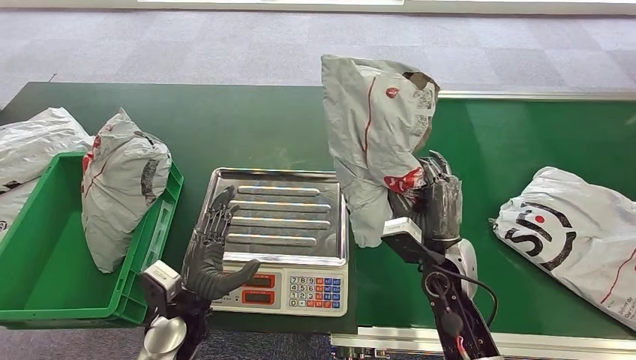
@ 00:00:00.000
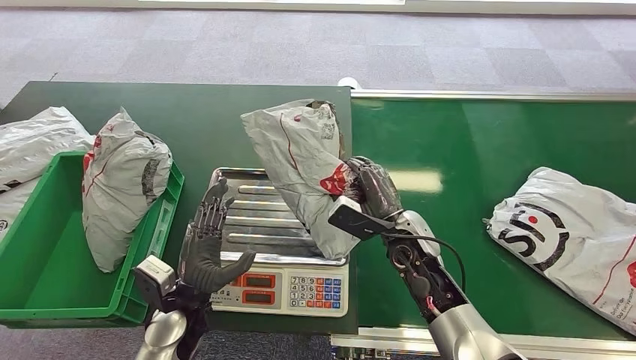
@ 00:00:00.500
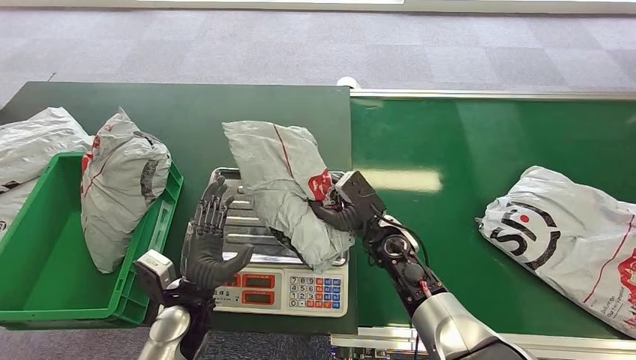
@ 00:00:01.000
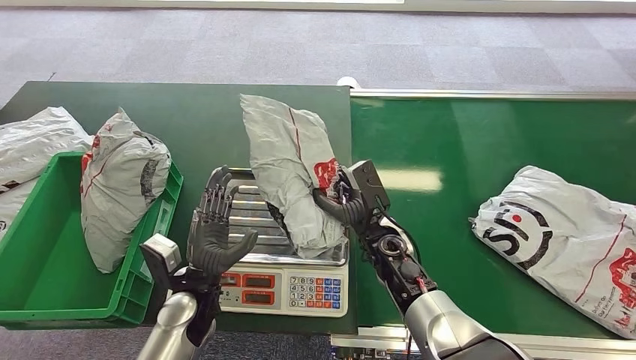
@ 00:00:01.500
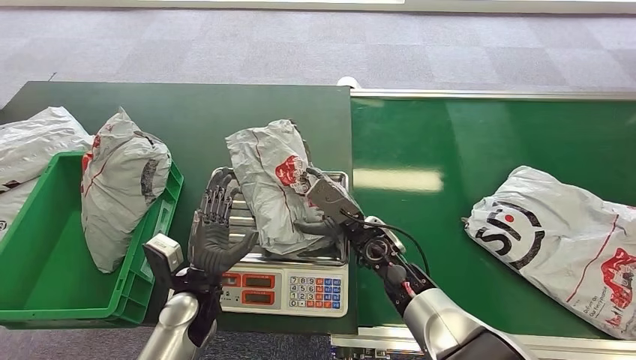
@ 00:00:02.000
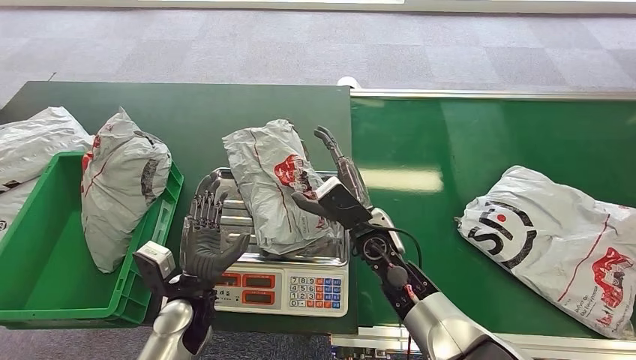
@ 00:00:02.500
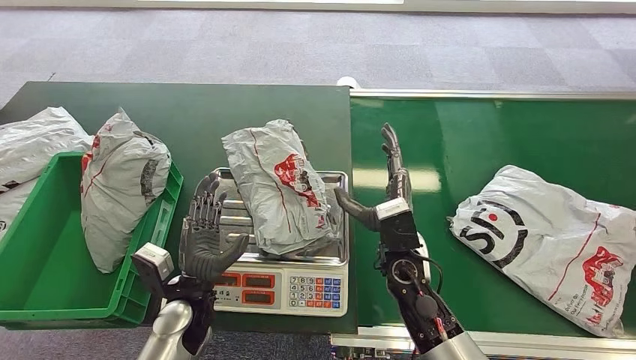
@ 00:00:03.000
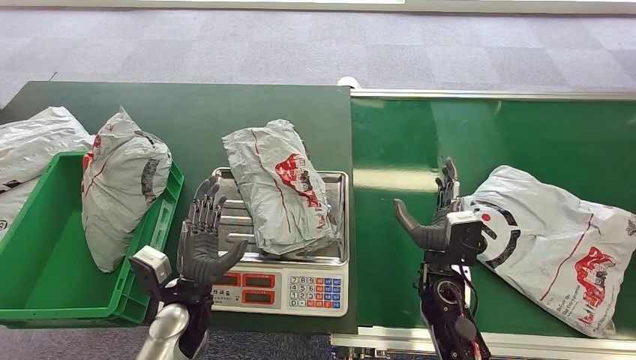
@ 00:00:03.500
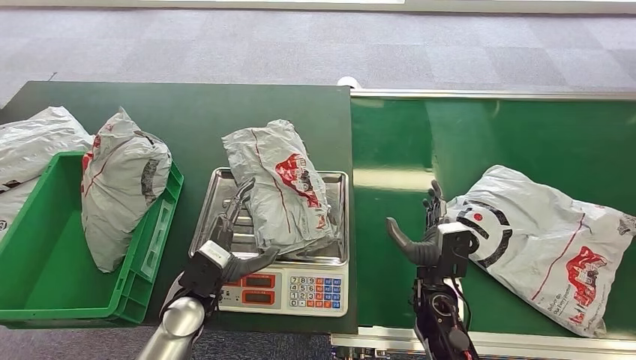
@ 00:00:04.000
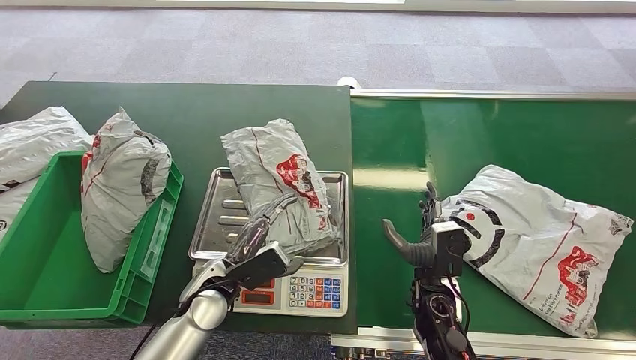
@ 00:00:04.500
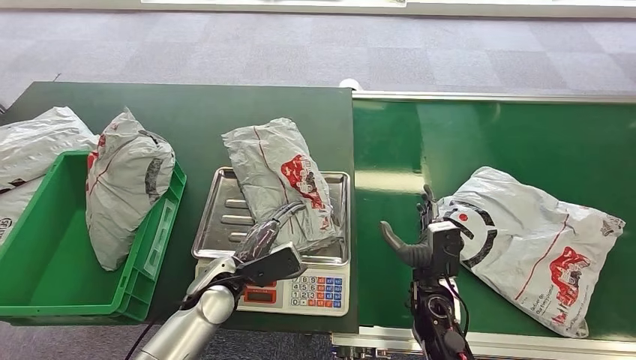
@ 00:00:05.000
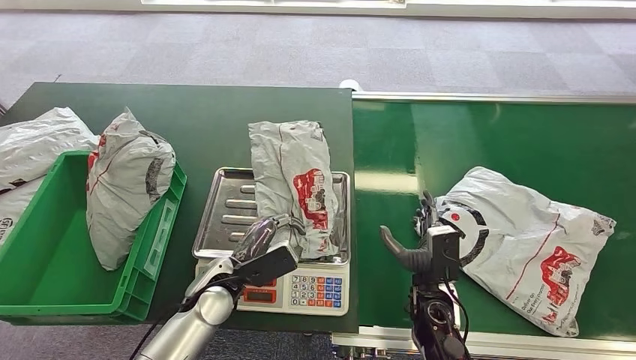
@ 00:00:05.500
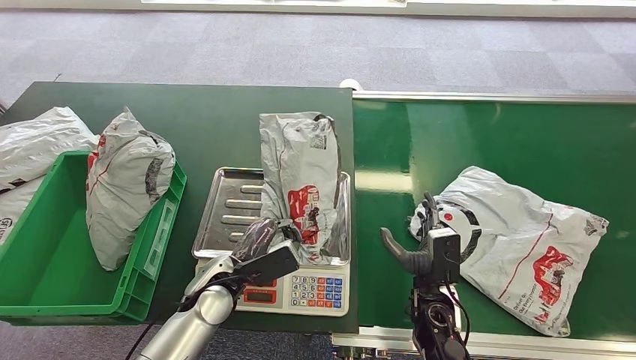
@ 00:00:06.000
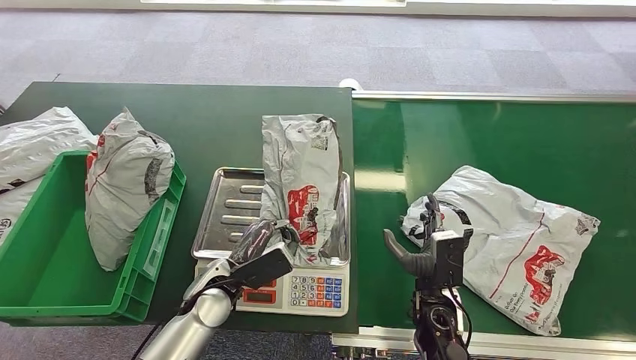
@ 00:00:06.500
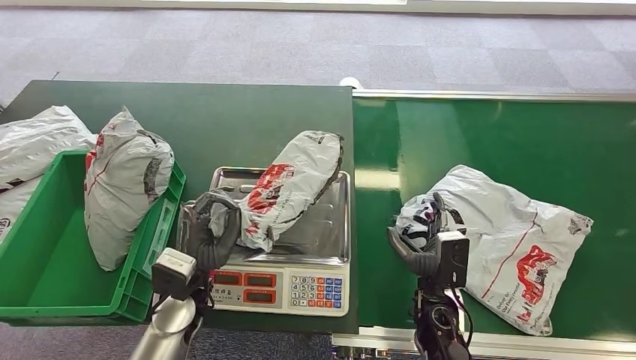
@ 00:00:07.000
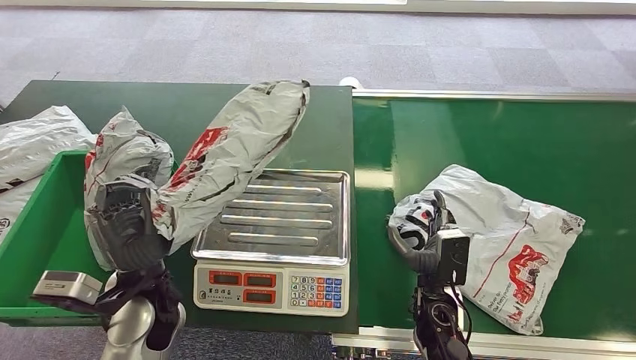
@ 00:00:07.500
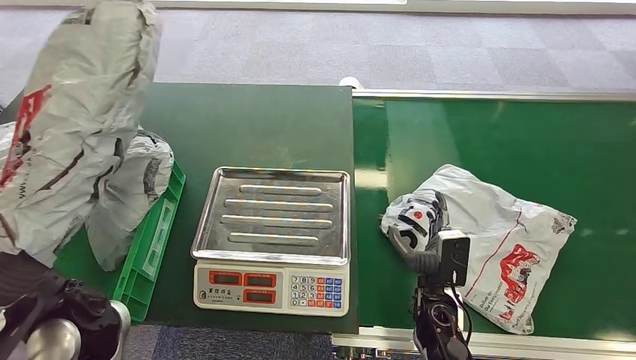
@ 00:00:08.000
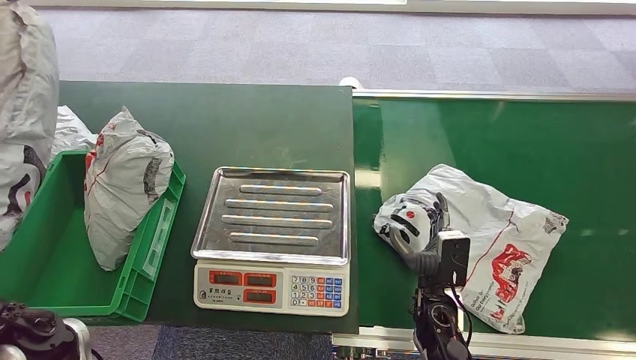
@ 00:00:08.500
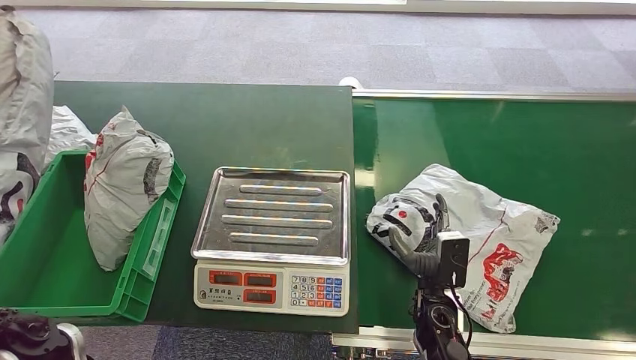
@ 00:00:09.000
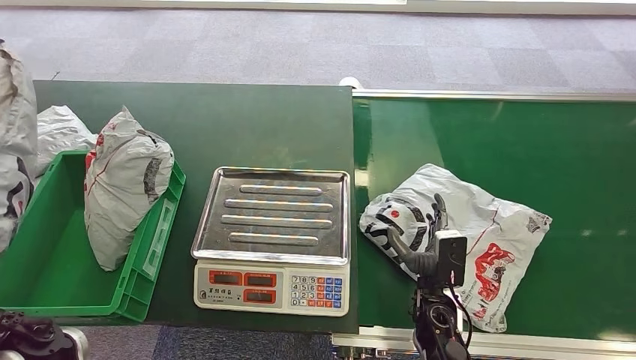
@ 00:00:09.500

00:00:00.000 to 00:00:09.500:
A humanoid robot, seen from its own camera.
Task of the whole recording: Weigh the package on the weighing device and place it in the left basket.
Step, 00:00:00.000 to 00:00:02.500: Place the package onto the inbound machine.
Step, 00:00:03.000 to 00:00:07.500: Pick up the package from the inbound machine.
Step, 00:00:08.000 to 00:00:09.500: Place the package into the parcel locker.
00:00:02.000 to 00:00:04.000: The right hand heads to the right, backward and downward, covering about 15 cm.
